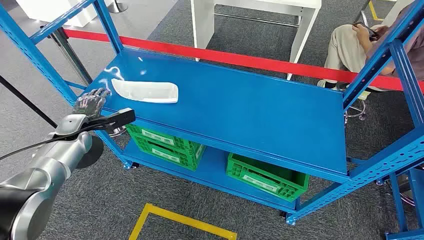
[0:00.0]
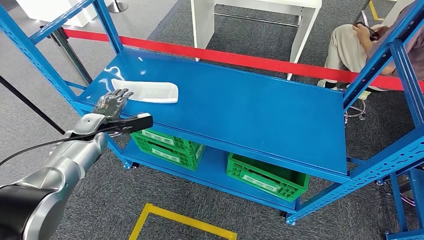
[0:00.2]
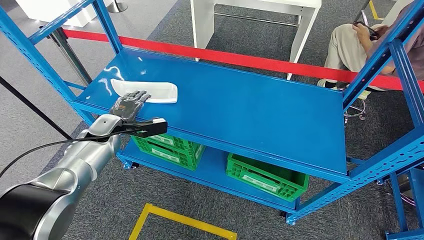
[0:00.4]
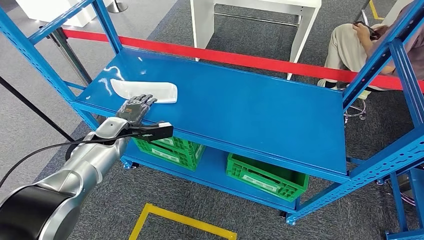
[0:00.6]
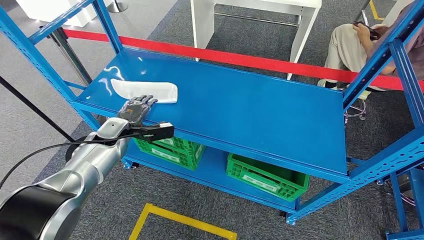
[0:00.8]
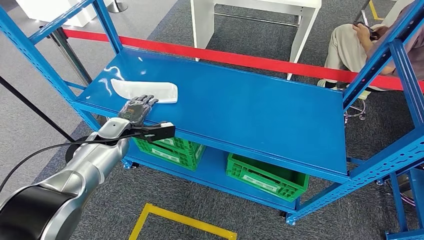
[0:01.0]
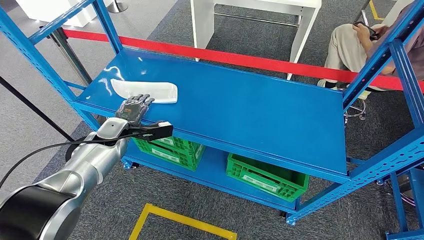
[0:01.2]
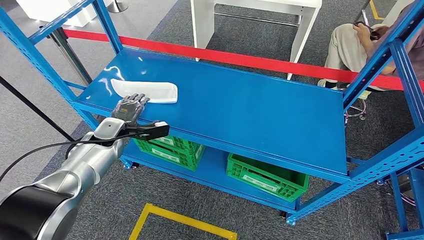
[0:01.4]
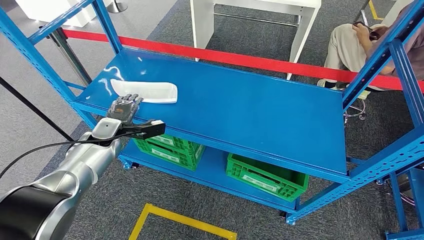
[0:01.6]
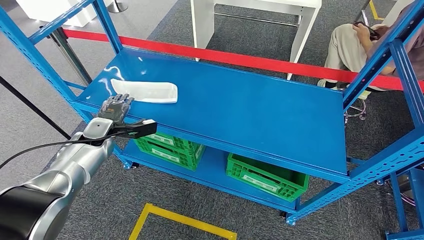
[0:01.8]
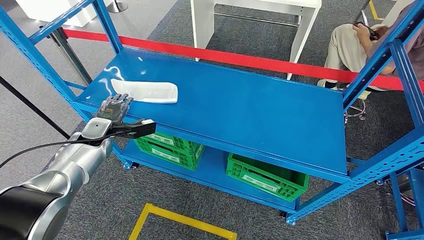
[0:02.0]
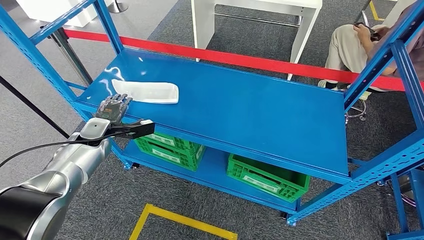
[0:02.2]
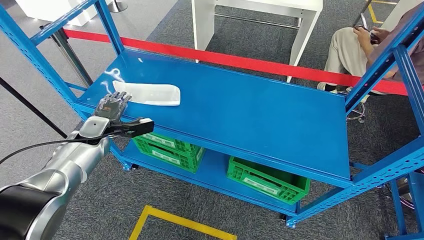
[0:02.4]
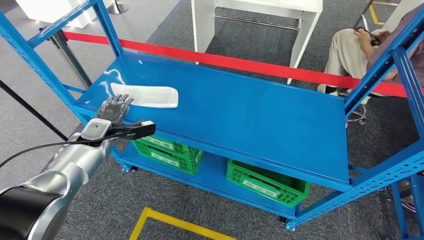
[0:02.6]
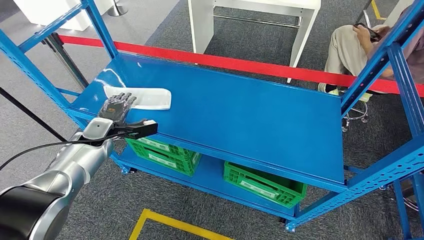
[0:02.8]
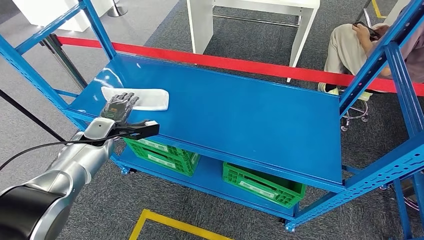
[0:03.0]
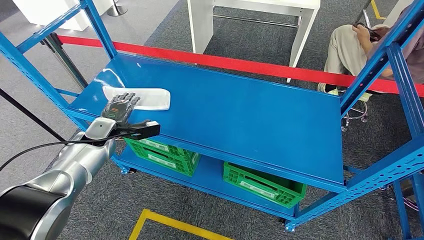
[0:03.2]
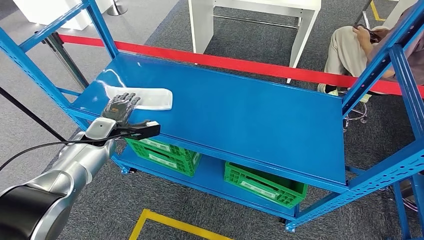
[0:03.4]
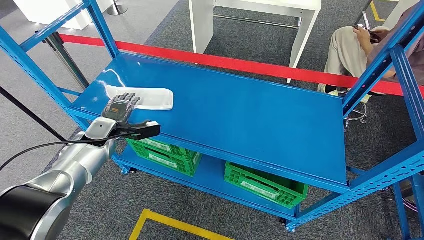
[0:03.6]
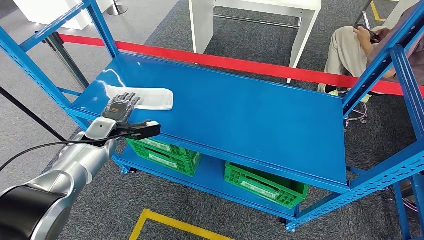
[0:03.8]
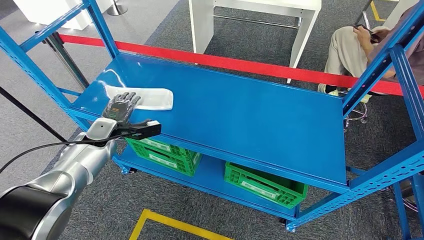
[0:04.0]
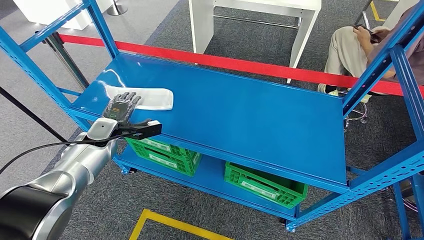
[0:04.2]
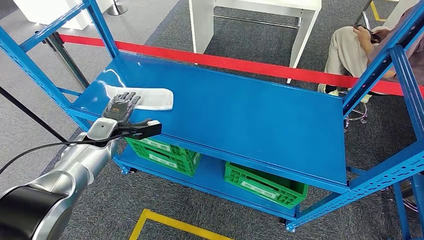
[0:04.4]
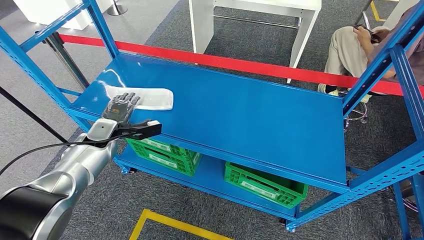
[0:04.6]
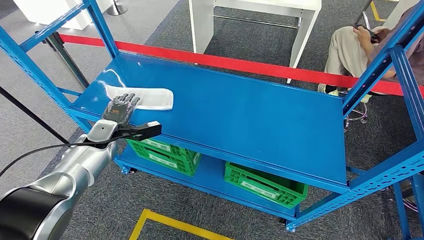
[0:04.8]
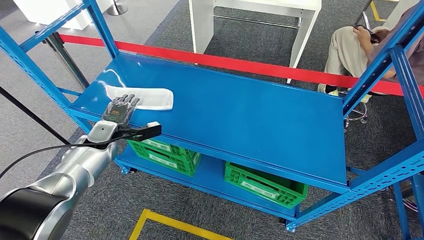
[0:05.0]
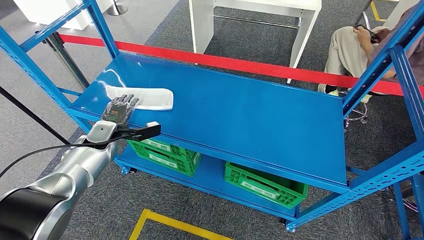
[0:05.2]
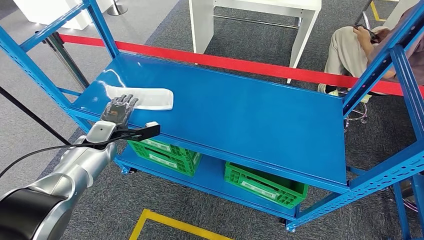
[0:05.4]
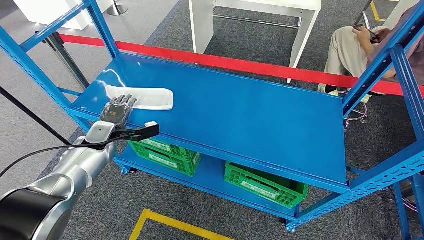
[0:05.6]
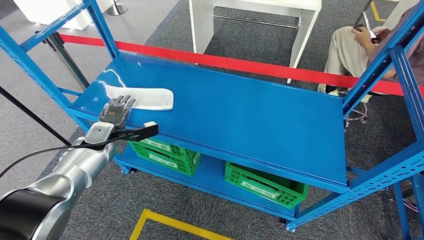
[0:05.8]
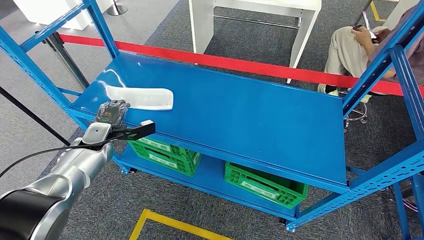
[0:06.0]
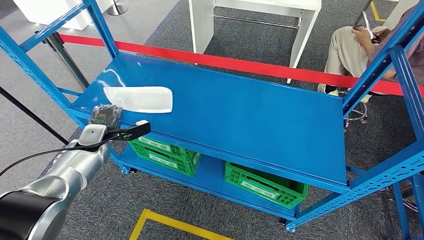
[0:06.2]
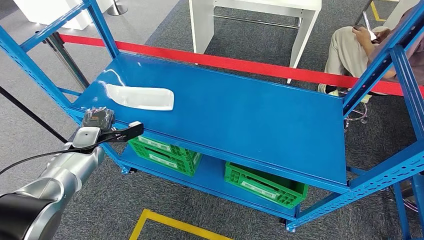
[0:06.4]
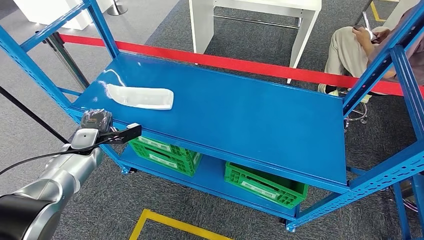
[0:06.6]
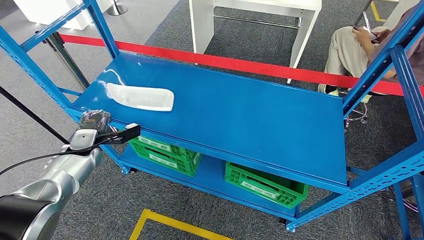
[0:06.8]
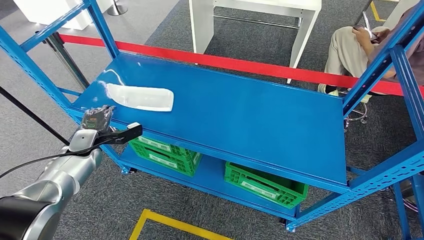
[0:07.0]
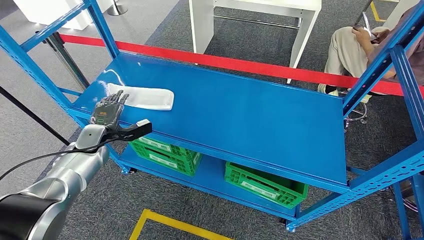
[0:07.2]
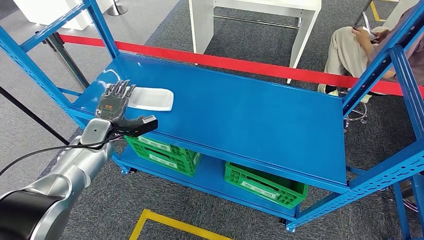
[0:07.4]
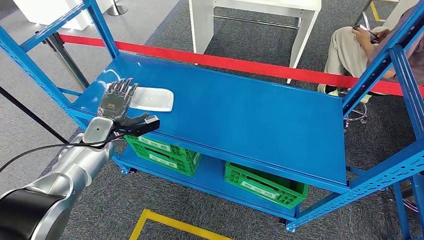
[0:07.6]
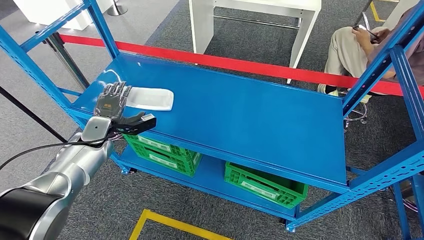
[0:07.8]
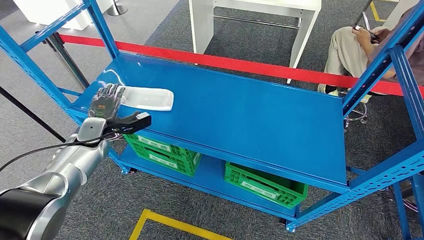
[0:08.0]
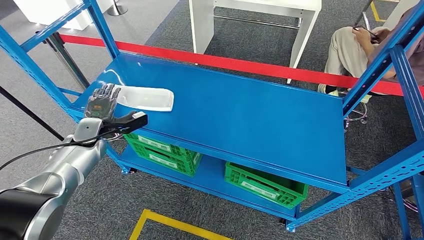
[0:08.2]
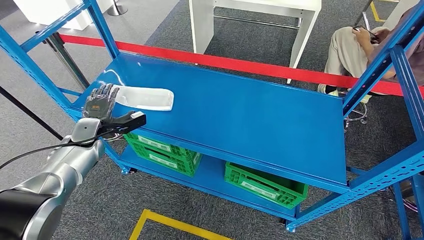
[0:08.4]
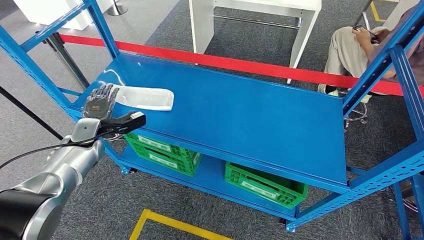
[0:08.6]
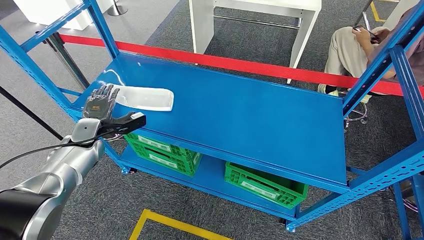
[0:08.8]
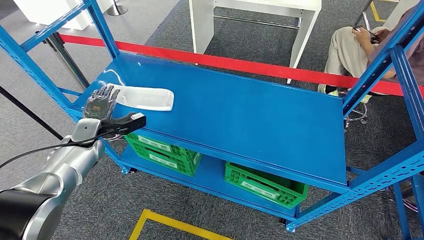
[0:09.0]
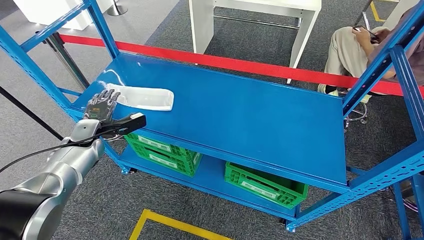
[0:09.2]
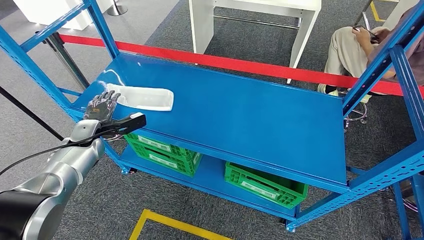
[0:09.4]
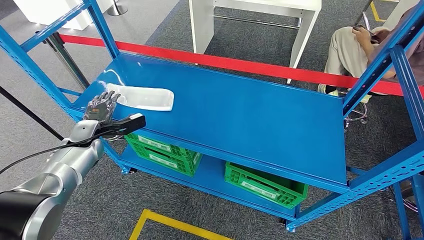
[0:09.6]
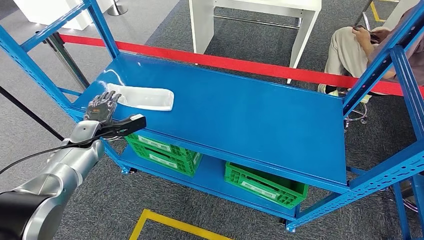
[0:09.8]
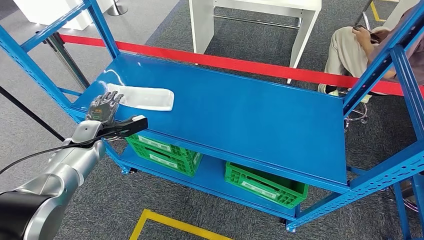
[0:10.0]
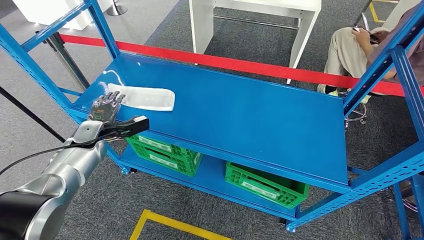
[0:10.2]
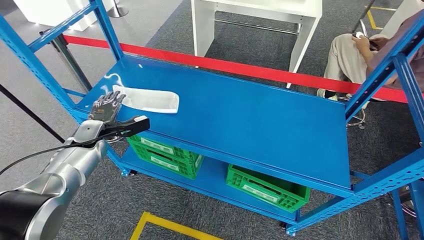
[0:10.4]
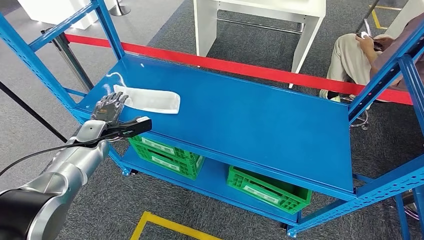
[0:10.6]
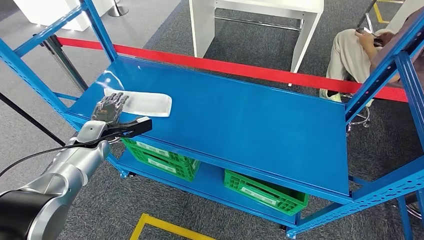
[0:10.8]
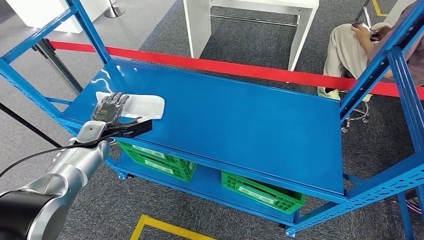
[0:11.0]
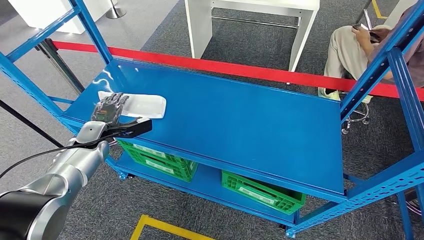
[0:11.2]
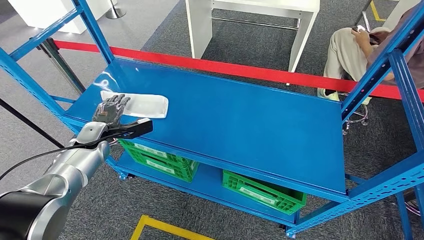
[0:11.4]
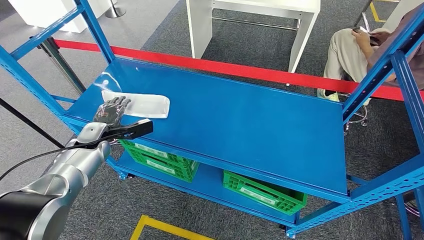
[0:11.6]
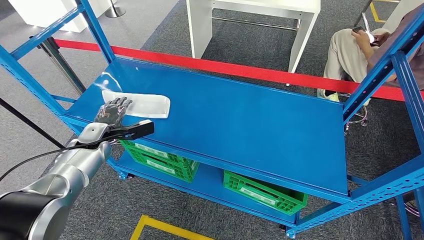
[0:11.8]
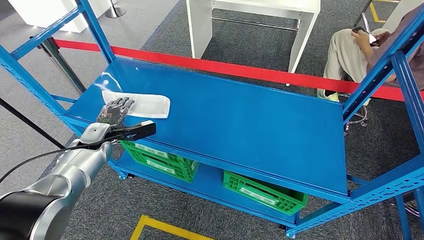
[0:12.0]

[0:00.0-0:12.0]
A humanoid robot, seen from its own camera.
0:03.0 to 0:04.4: Both hands stay put.
0:04.4 to 0:06.0: The hands make only small movements.
0:06.0 to 0:09.0: The hands move only a little.

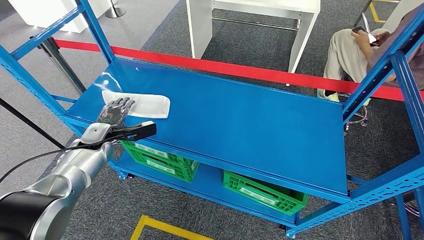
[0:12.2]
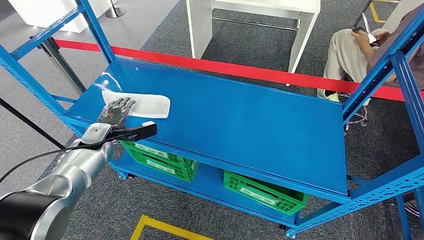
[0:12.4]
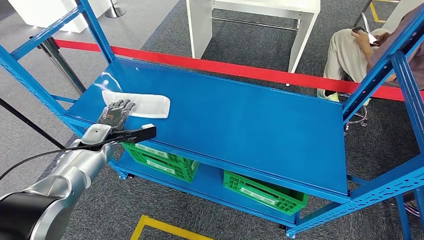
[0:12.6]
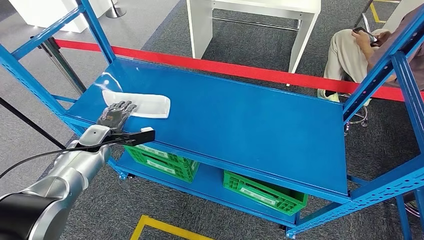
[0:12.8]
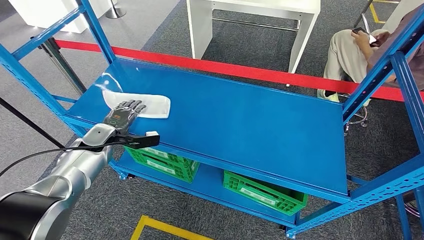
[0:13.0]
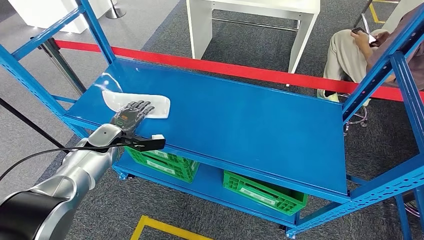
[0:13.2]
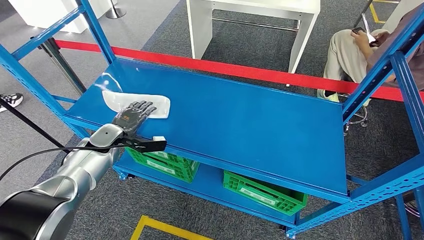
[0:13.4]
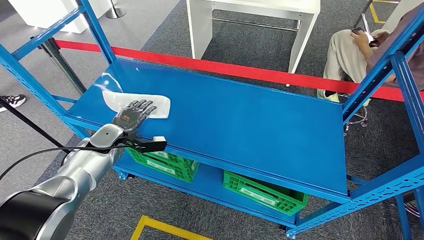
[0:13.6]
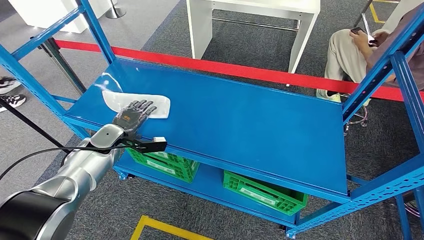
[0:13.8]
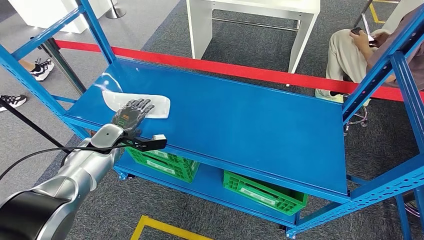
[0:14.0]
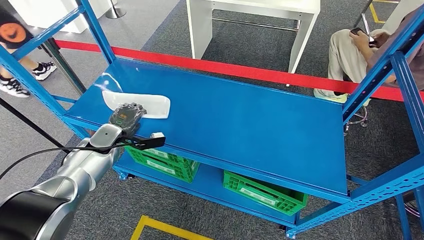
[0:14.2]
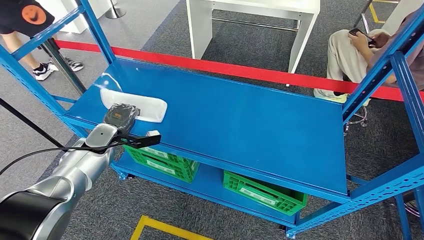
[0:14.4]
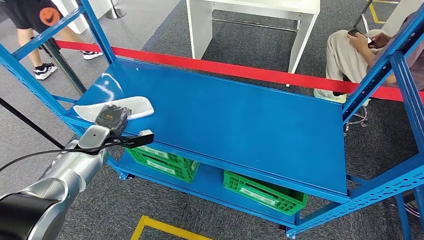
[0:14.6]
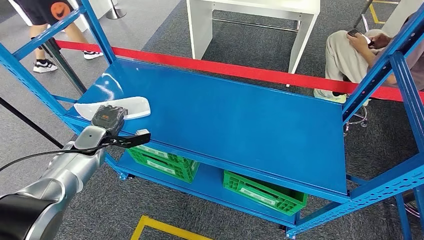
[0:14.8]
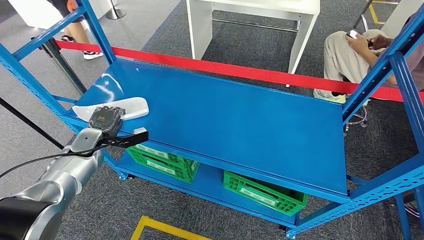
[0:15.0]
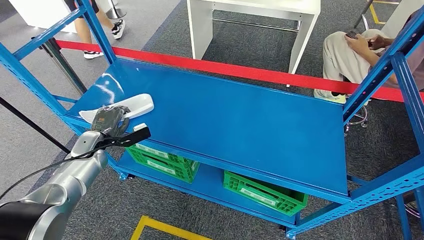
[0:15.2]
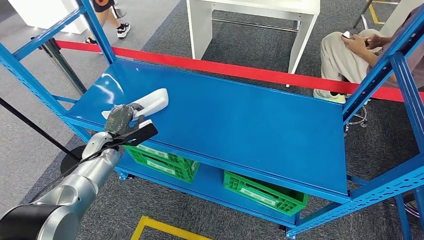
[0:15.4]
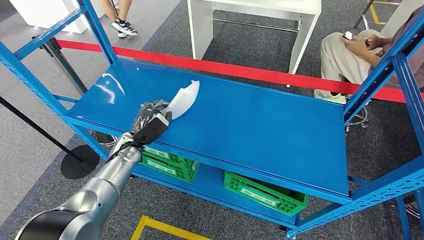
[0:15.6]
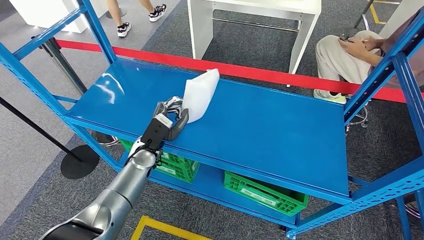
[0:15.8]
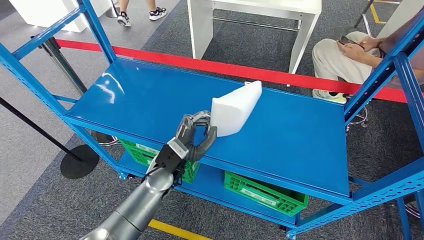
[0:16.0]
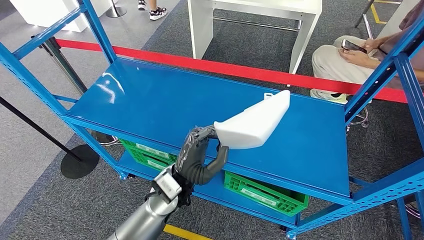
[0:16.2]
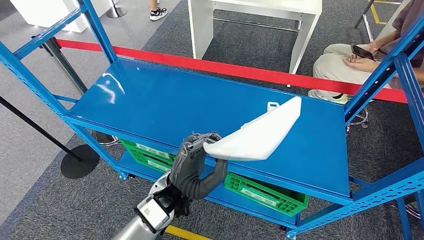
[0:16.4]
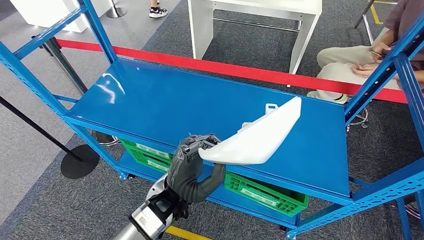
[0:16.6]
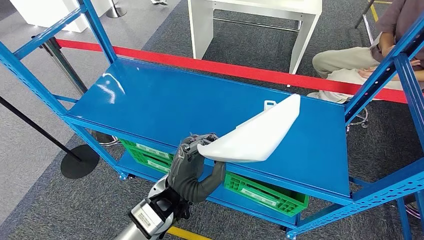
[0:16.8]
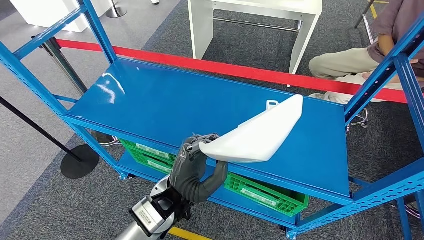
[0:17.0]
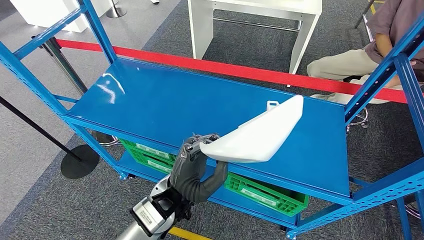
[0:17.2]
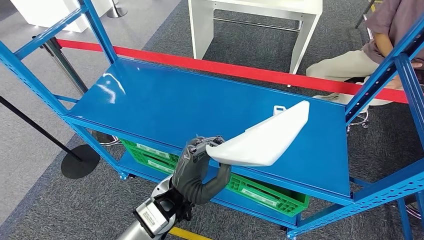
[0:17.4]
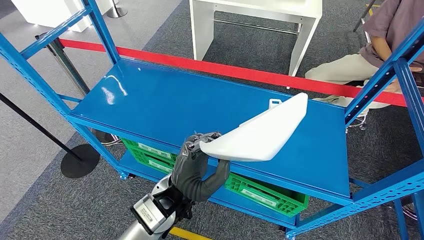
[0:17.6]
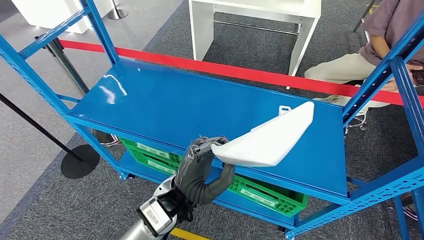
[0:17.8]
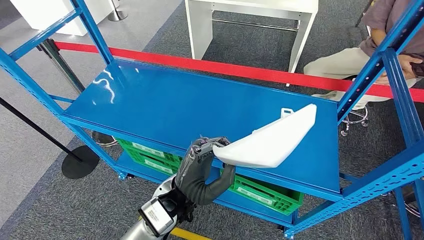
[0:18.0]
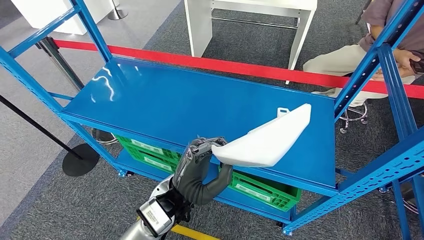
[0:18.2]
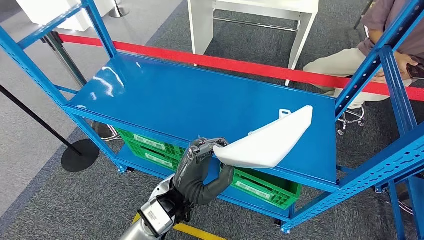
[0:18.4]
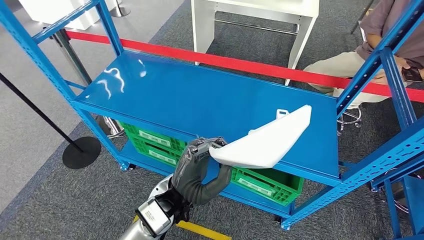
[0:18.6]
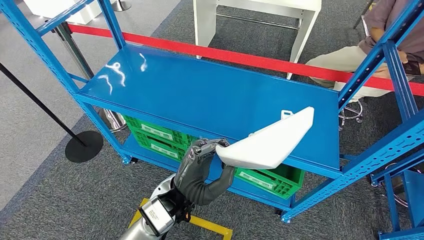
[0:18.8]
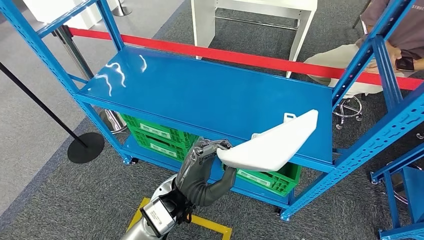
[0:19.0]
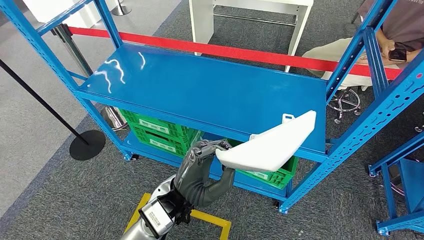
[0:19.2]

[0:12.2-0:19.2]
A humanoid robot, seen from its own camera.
Step, 0:12.2 to 0:16.8: Pick up the large material from the shelf.
0:13.6 to 0:15.0: The left hand travels to the left by about 5 cm.
0:16.4 to 0:17.8: The hands make only small movements.
